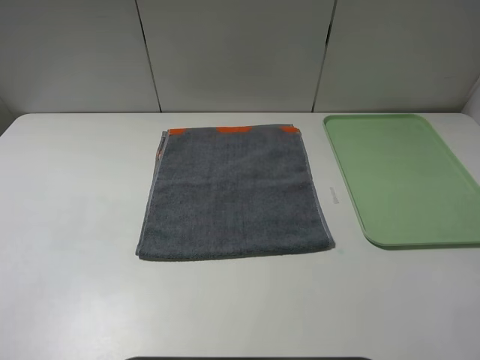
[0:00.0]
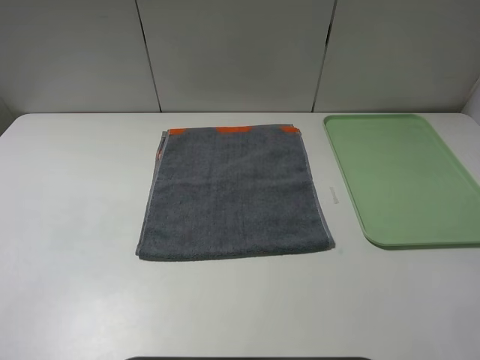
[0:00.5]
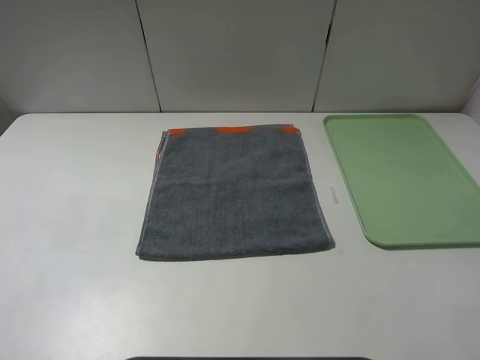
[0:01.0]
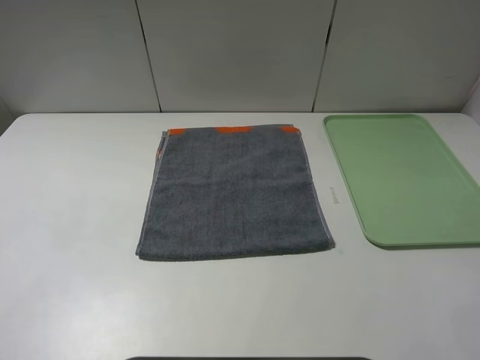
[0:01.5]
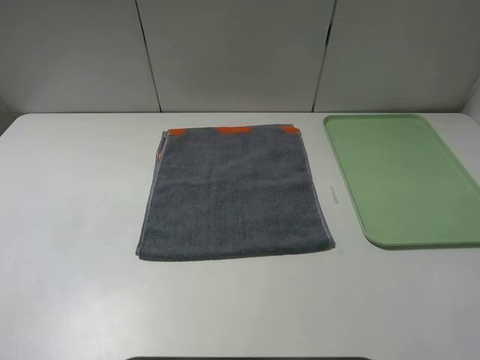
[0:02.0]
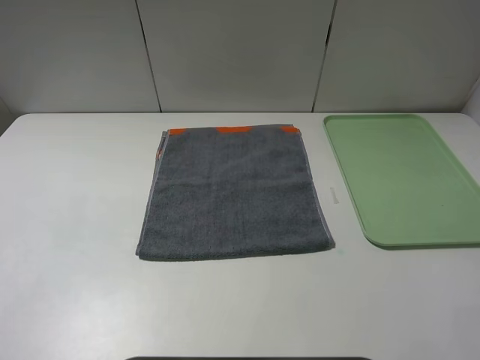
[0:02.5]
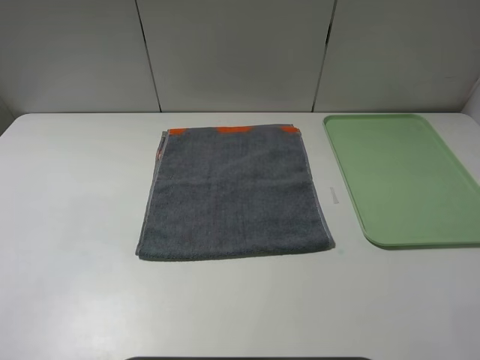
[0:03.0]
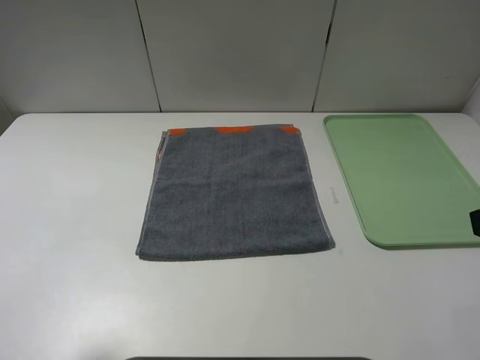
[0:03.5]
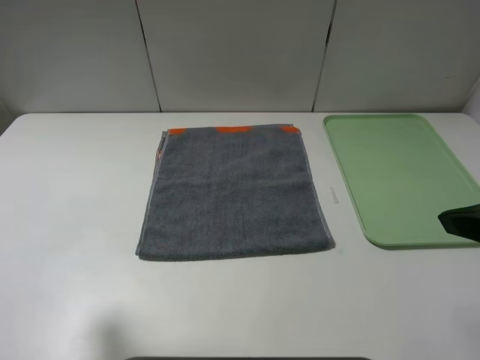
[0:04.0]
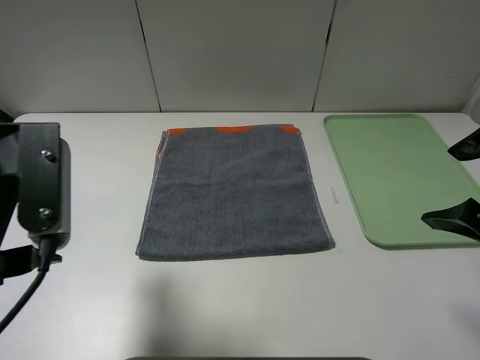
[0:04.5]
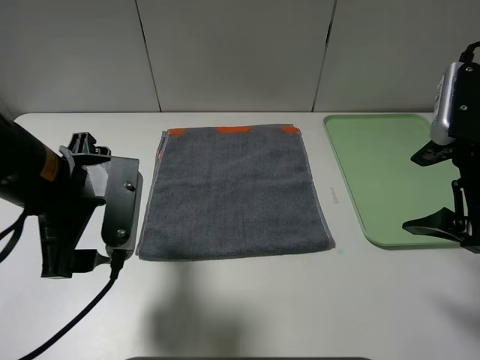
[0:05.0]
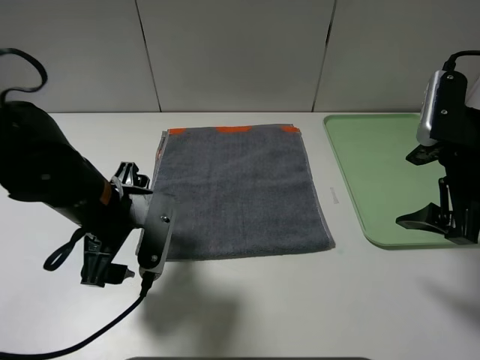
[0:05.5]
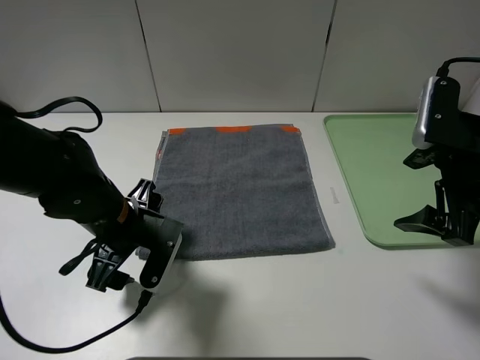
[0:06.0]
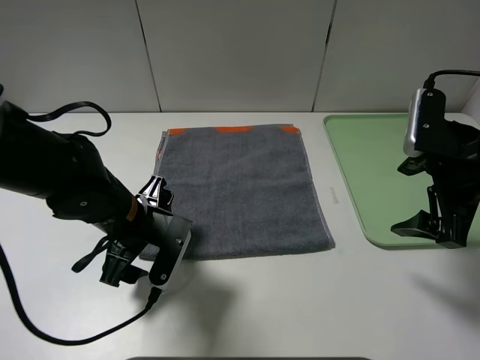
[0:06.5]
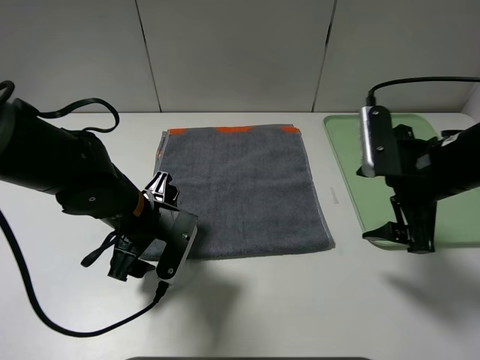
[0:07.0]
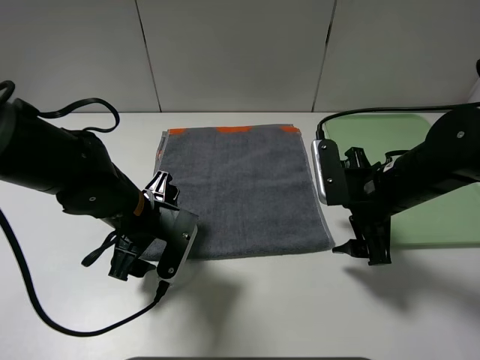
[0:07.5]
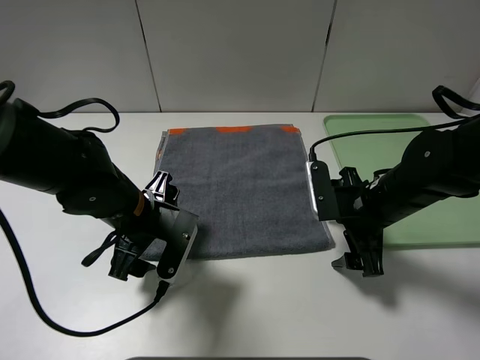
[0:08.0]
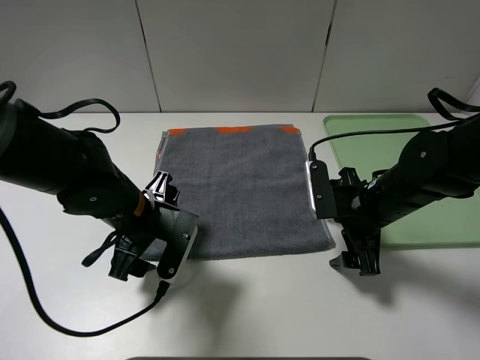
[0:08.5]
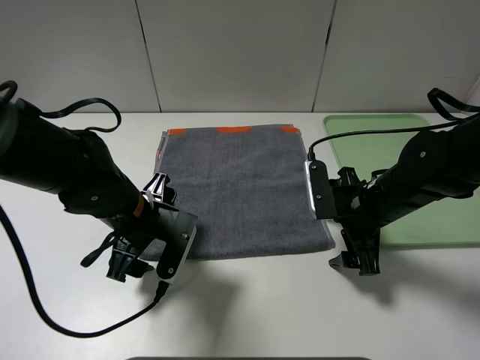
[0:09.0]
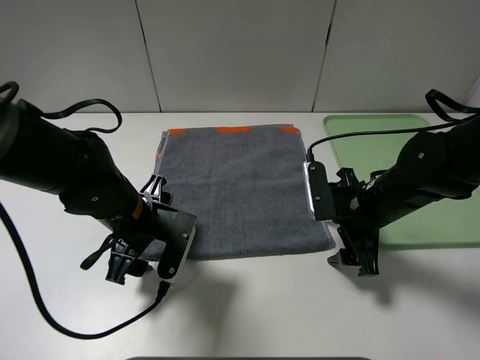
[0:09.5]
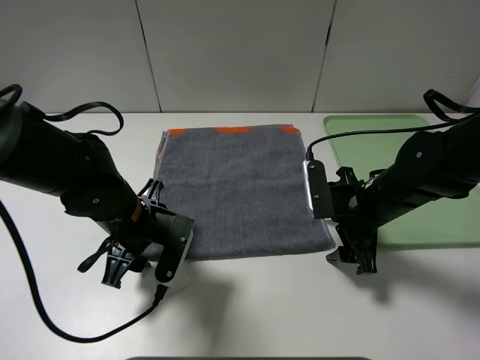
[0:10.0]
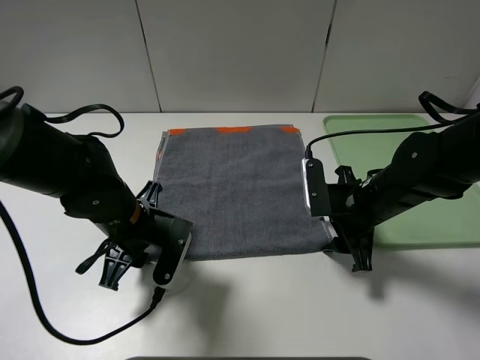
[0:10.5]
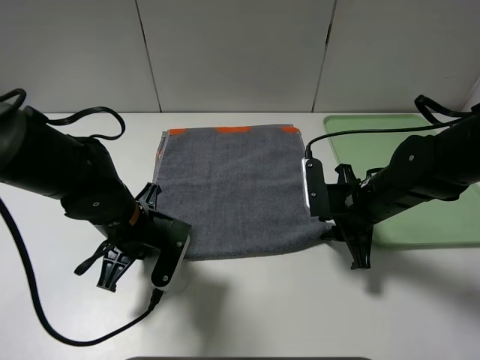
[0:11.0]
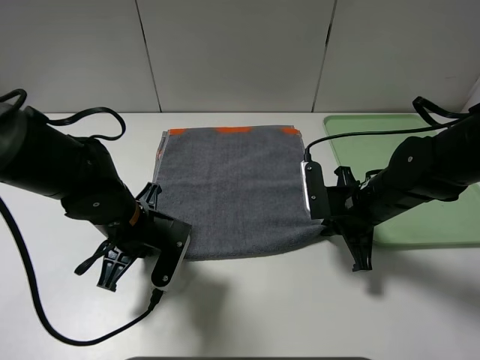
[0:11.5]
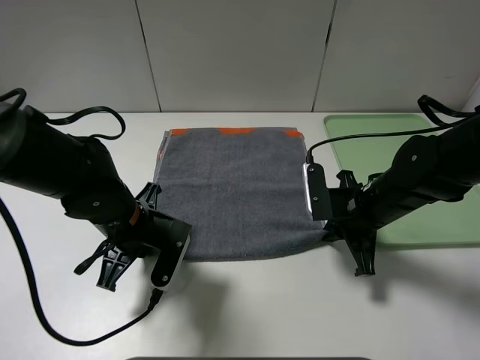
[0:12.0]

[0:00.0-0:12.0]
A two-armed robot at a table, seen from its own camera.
0.0 to 2.0 s: Both grippers stay put.
2.0 to 4.0 s: The two grippers go about 10 cm forward.
4.0 to 6.0 s: The right gripper moves forward and downward, some 10 cm. The left gripper goes about 25 cm downward, to the right and forward.
6.0 to 8.0 s: The right gripper moves downward and to the left, some 15 cm.
8.0 to 10.0 s: There are only small adjustments of the grippers.
10.0 to 12.0 s: The right gripper closes up. Meanwhile the left gripper closes up.

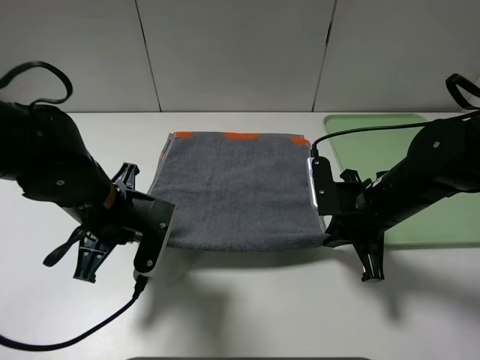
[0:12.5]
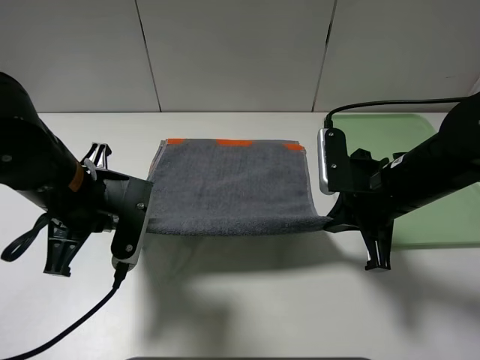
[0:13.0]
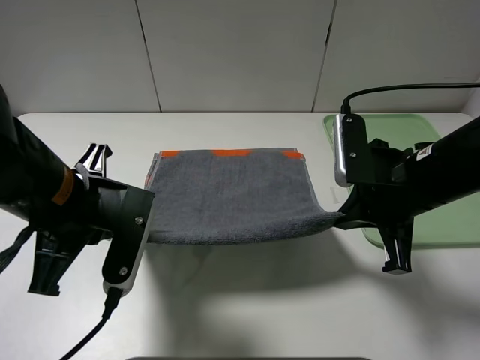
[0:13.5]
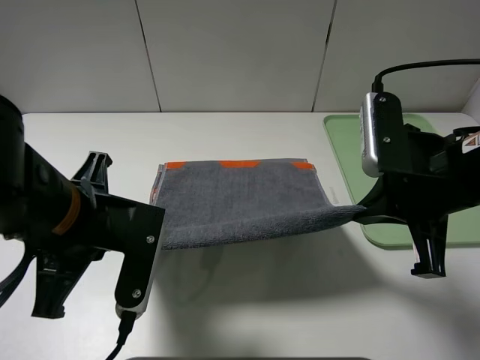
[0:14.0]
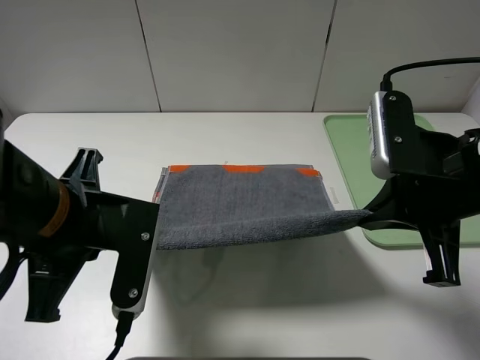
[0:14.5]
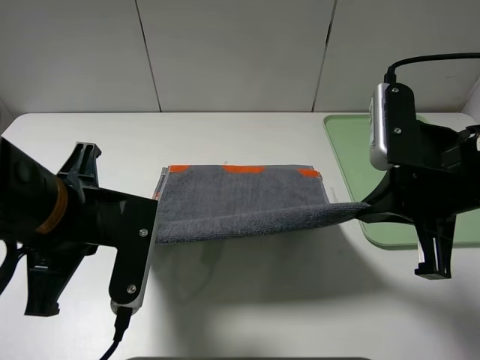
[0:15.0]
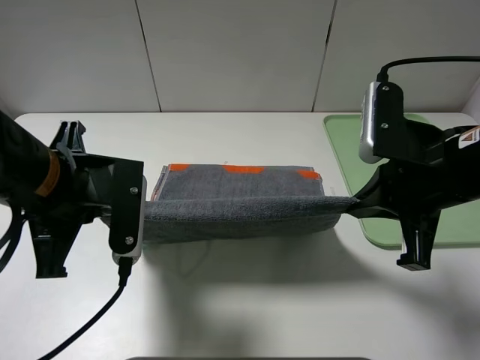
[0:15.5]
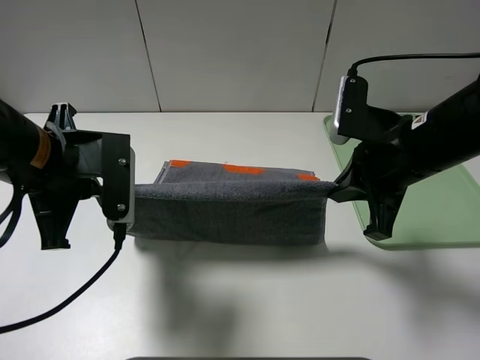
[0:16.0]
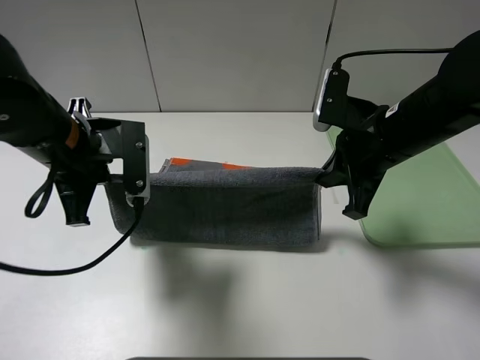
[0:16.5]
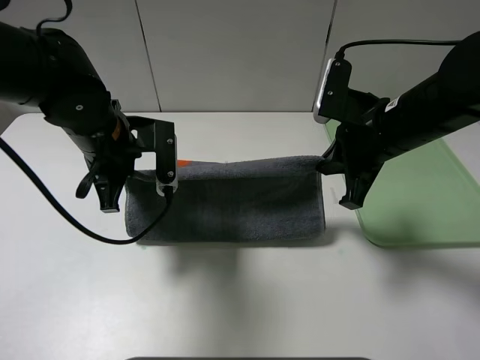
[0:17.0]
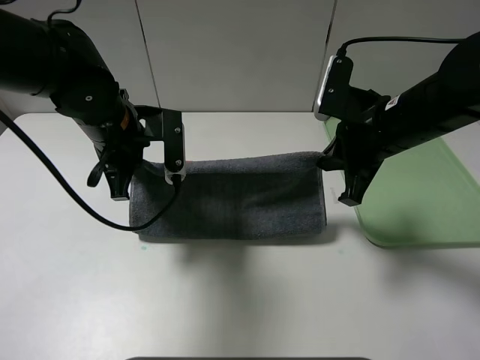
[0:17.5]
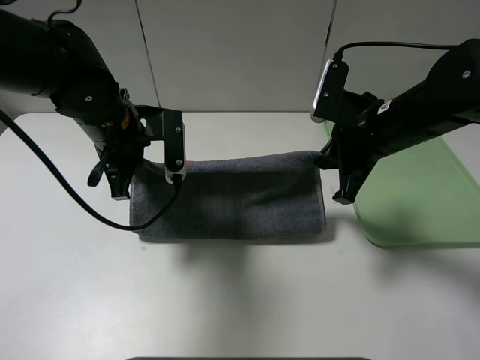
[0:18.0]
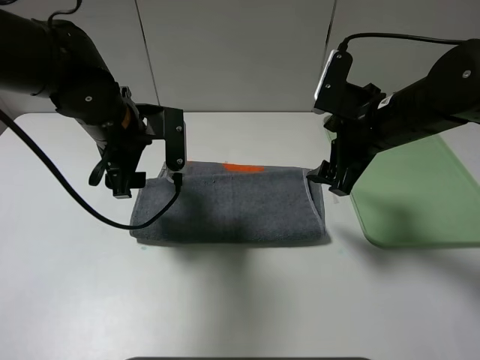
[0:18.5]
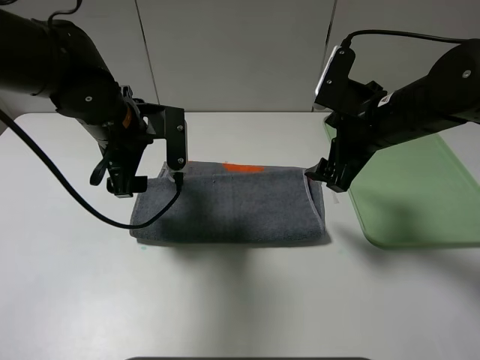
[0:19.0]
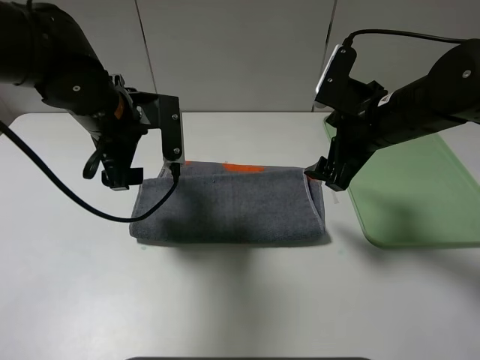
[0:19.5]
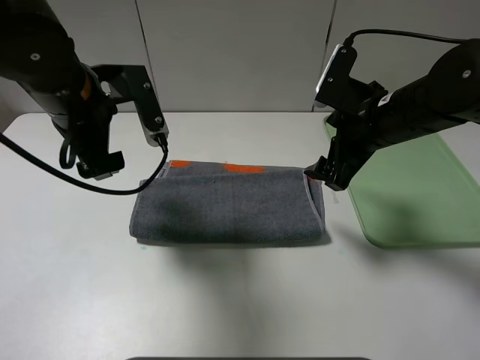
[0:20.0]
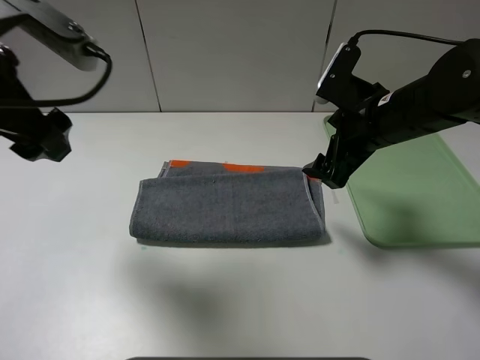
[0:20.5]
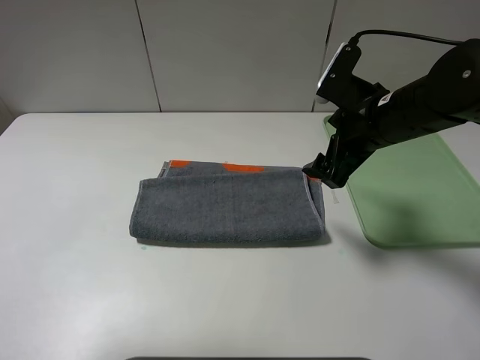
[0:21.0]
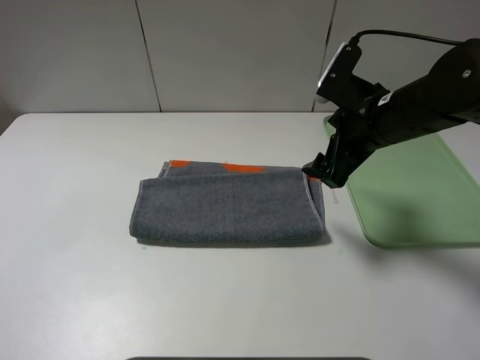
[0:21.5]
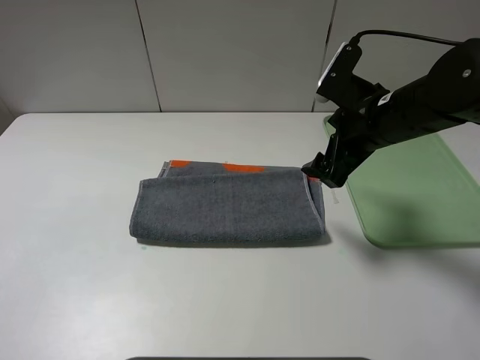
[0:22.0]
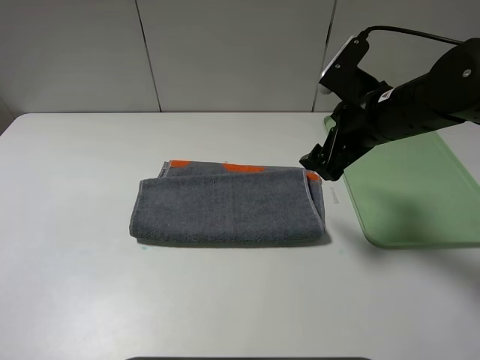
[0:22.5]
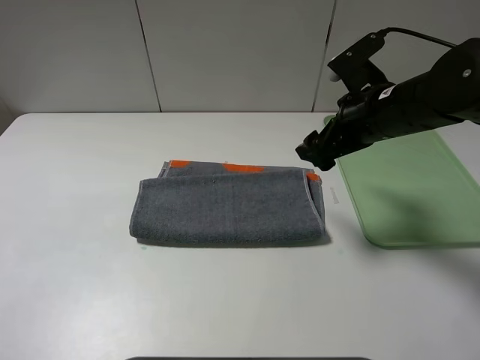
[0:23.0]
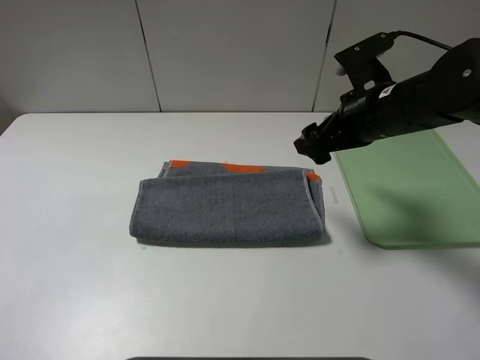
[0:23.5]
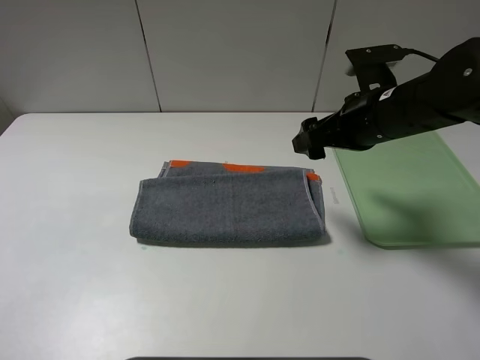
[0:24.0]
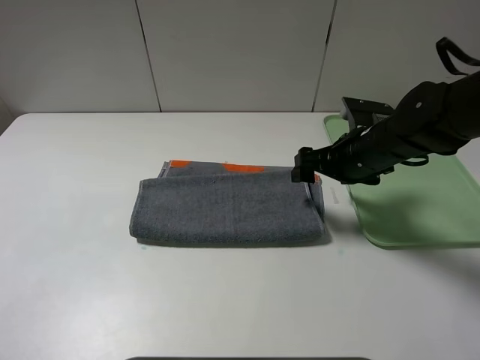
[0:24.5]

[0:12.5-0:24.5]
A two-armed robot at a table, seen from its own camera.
Step, 12.5 to 18.0 s: Fold the grey towel upwards.
12.5 to 14.5 s: The left gripper travels backward and upward by about 10 cm; the right gripper moves upward and backward, approximately 15 cm.
14.5 to 16.5 s: Both grippers travel together forward, about 10 cm.
16.5 to 18.5 s: The right gripper opens its fingers. Meanwhile the left gripper shifts by approximately 5 cm, and opens its fingers.
18.5 to 20.5 s: The left gripper travels upward, backward and to the left by roughly 20 cm.
20.5 to 22.5 s: The left gripper heads backward and to the left, covering some 20 cm.
22.5 to 24.5 s: The right gripper goes some 5 cm downward.

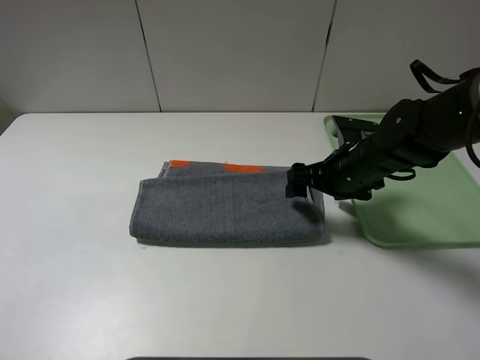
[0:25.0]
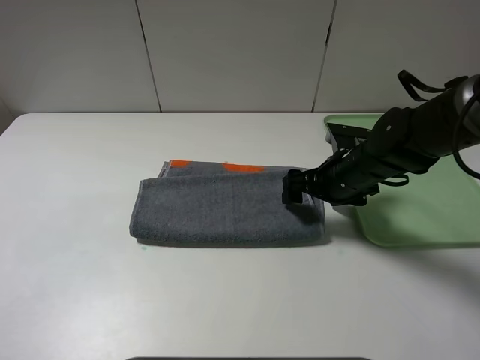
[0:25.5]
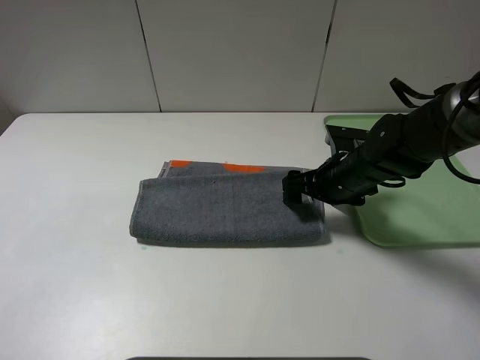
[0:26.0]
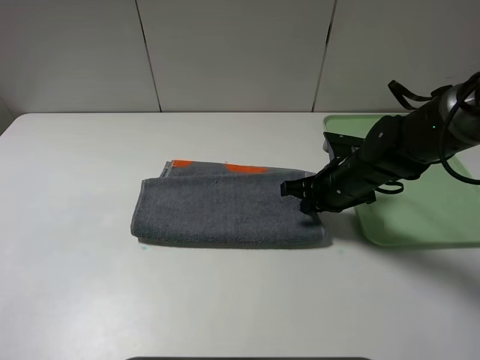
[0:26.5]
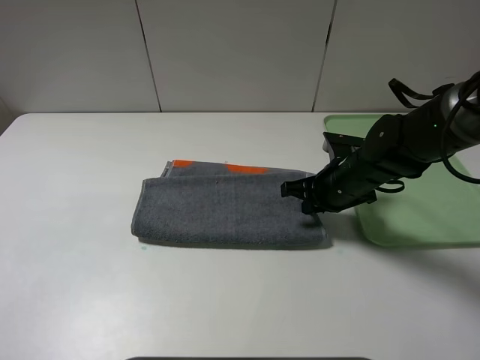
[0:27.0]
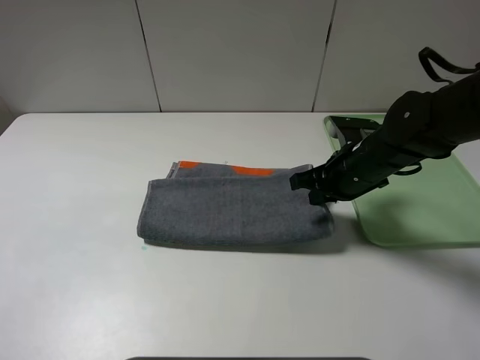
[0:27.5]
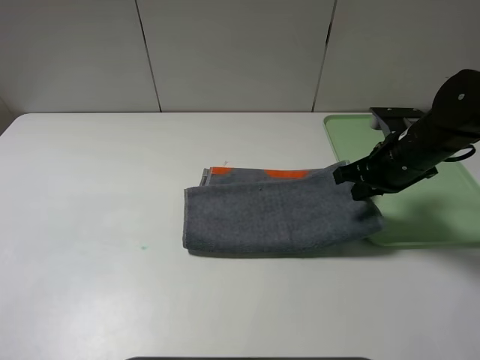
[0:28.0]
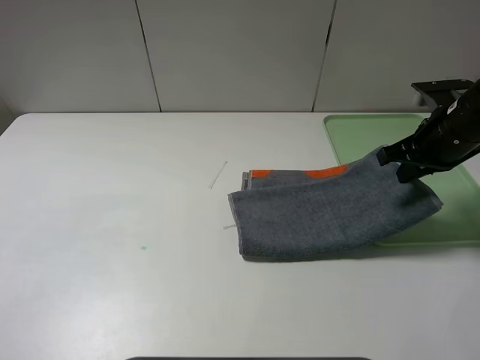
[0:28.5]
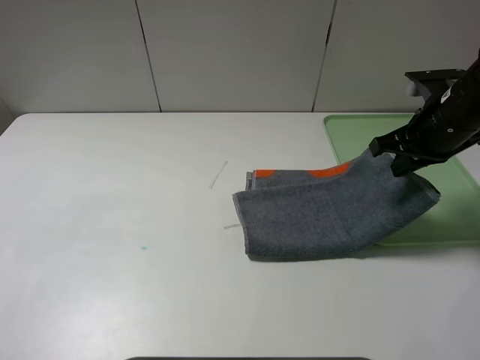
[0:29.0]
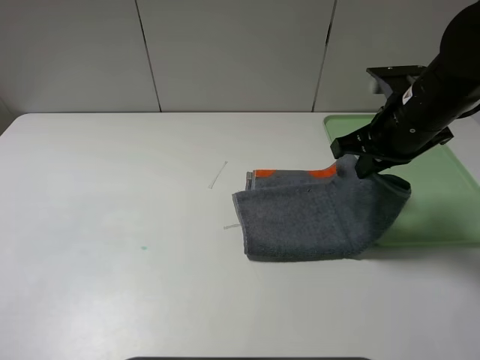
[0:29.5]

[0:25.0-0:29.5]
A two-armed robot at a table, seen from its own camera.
25.0 to 27.0 s: The right gripper closes.
27.0 to 29.5 s: The right gripper heads upward, covering roughly 10 cm.
